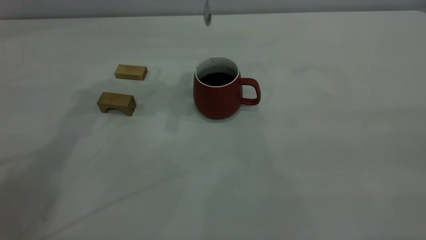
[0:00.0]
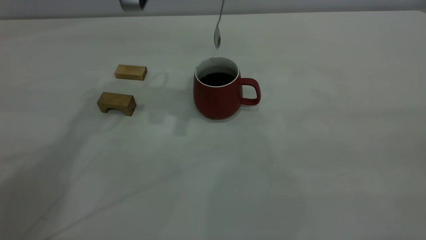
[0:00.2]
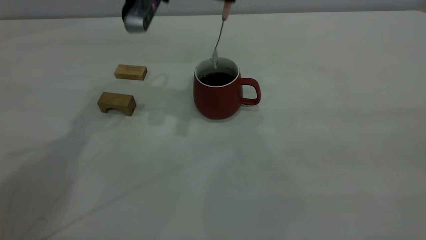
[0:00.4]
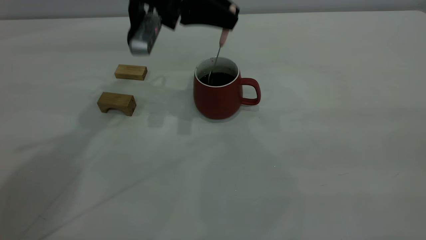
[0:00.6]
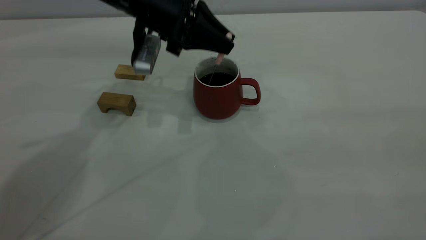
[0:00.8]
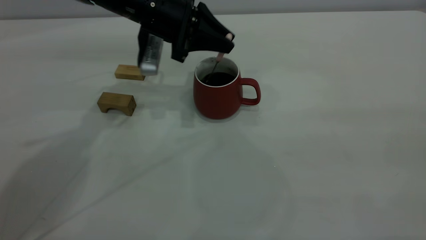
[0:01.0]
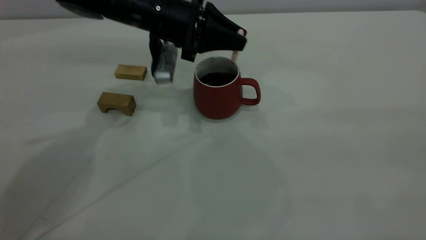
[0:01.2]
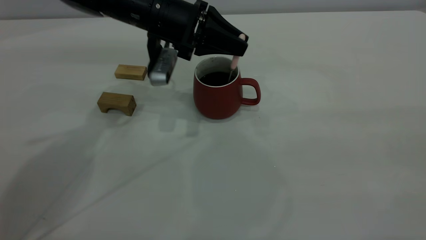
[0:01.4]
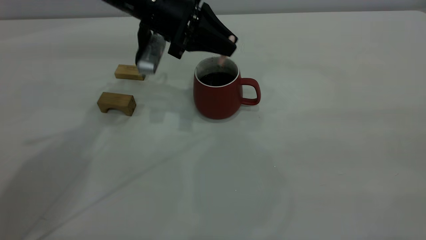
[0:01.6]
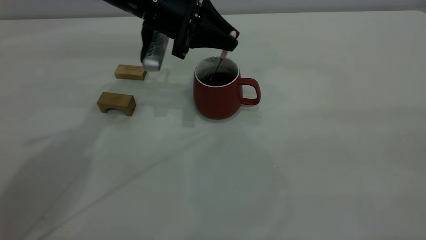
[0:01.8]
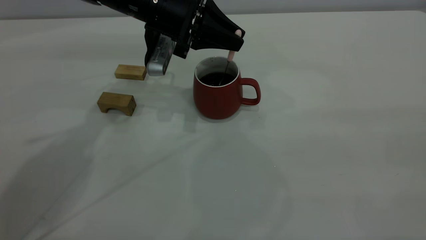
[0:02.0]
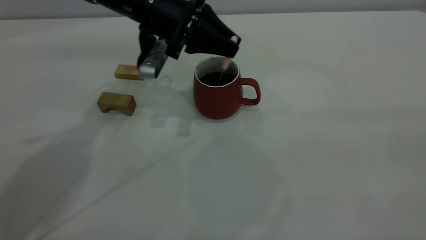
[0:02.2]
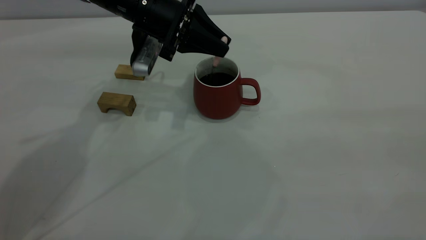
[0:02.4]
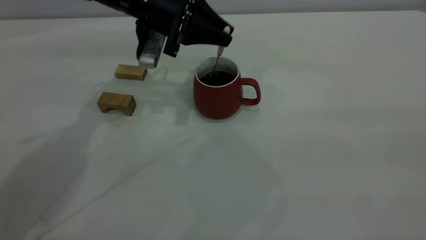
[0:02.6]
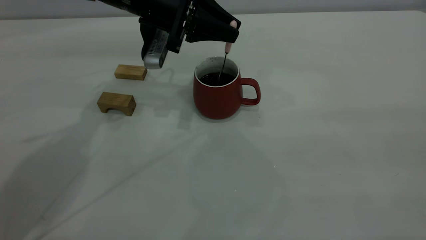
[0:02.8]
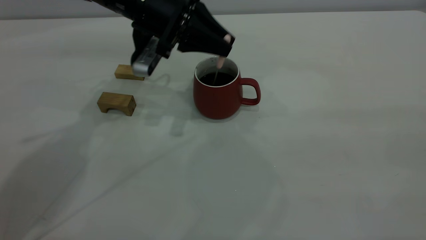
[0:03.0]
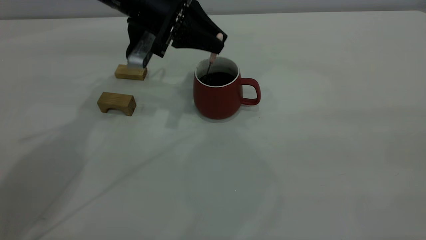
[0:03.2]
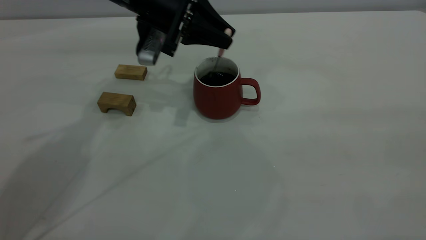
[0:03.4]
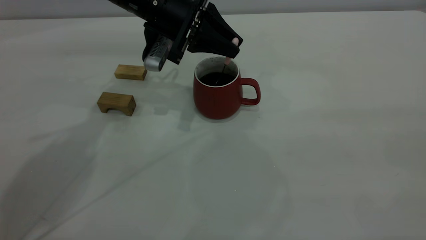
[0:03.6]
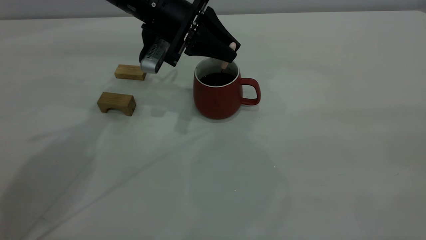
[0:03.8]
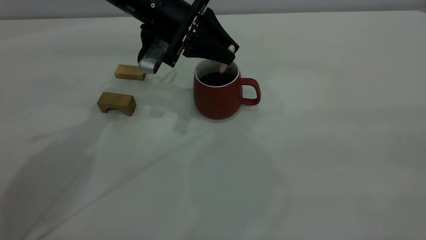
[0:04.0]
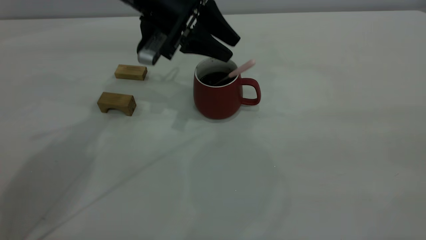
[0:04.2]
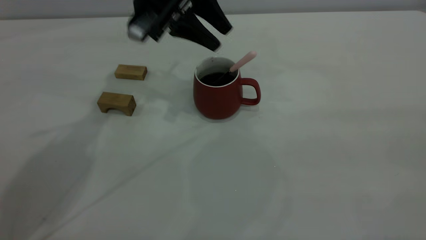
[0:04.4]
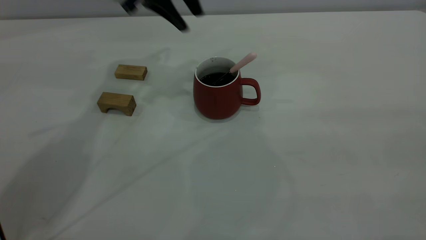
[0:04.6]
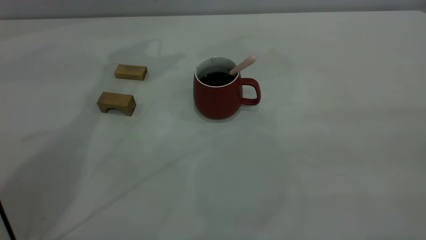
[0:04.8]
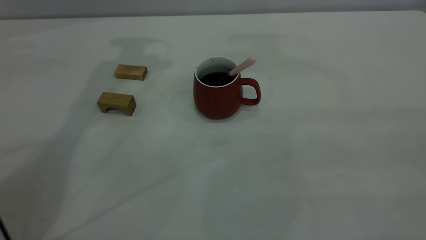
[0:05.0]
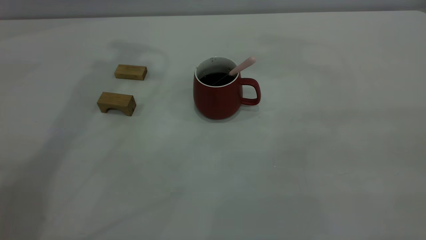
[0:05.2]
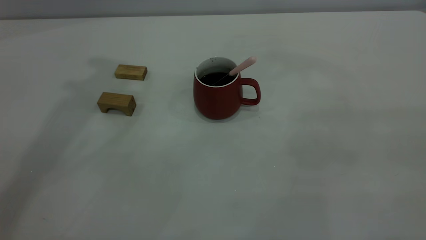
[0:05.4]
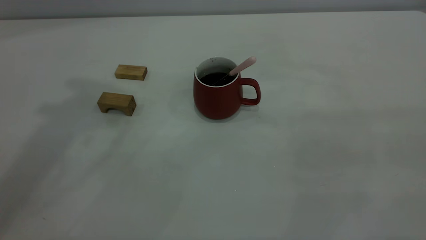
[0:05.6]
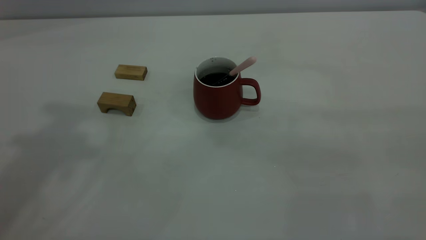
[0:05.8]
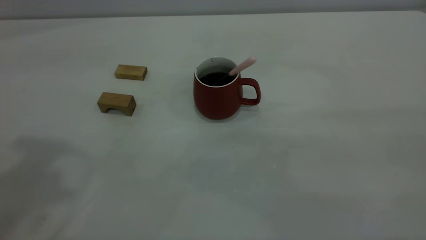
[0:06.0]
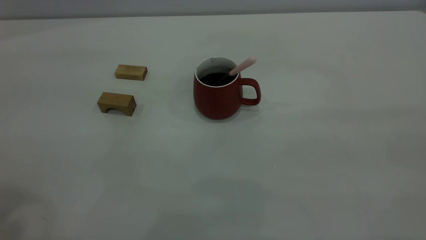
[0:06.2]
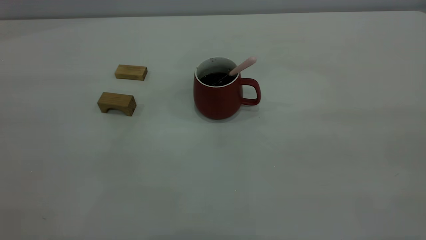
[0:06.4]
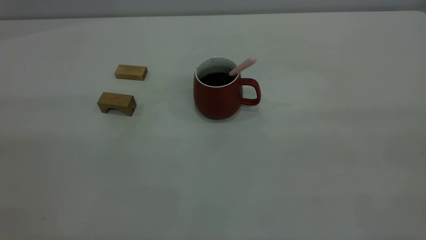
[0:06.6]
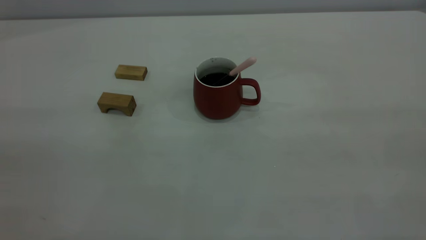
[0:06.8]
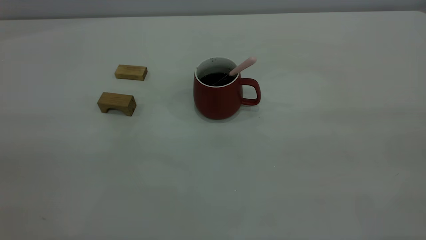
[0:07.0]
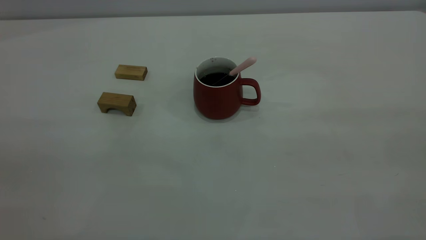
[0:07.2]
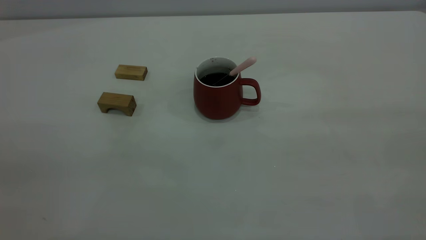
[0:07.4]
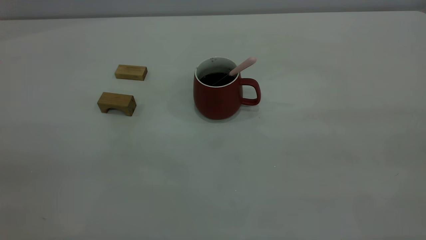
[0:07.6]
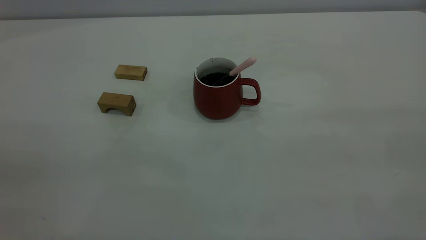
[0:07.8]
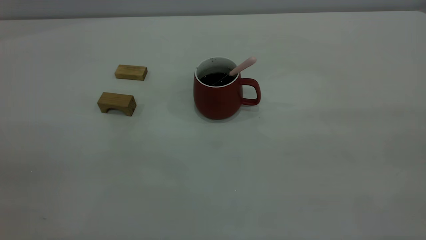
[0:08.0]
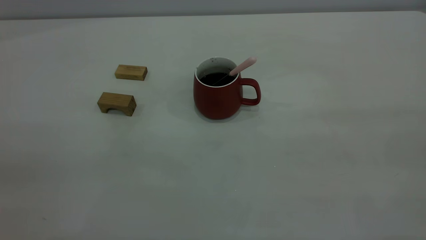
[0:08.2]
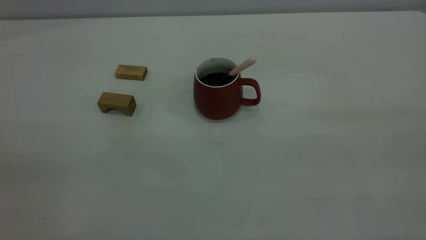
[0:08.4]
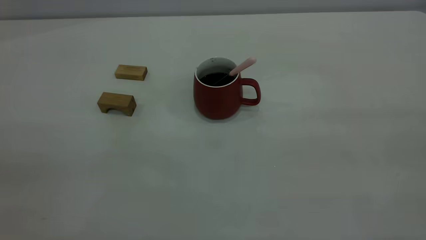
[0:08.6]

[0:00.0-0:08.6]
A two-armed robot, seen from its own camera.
Step, 0:00.0 to 0:04.4: Stir the coffee in the cup.
0:00.0 to 0:01.4: The left gripper travels downward by some 15 cm.
0:01.4 to 0:02.8: The grippers stay close to where they were, moving slightly.
0:02.8 to 0:04.4: The left gripper ends up about 5 cm from where it was, and opens.
0:04.4 to 0:05.8: The left gripper travels upward, backward and to the left by about 35 cm.
0:07.2 to 0:08.6: Both grippers stay about where they are.
